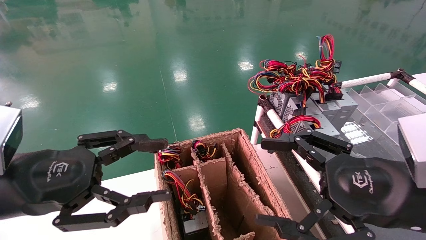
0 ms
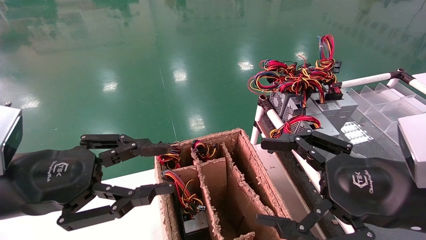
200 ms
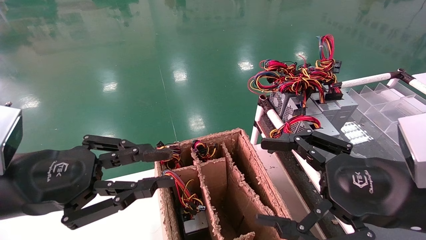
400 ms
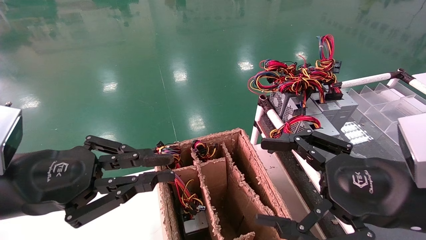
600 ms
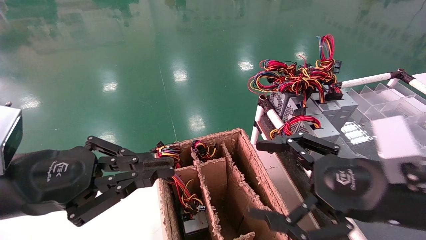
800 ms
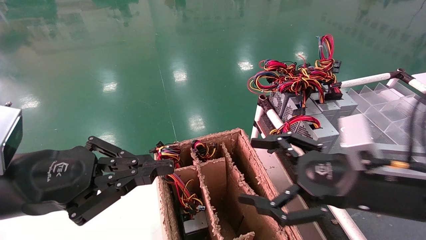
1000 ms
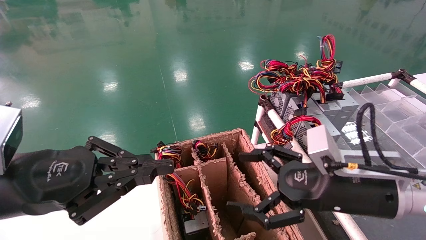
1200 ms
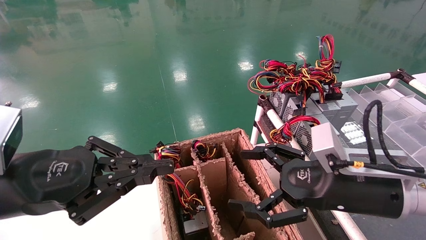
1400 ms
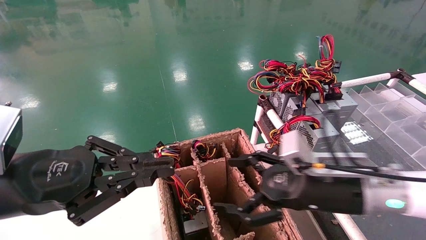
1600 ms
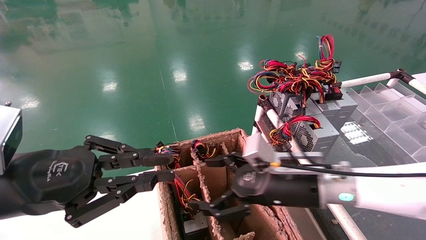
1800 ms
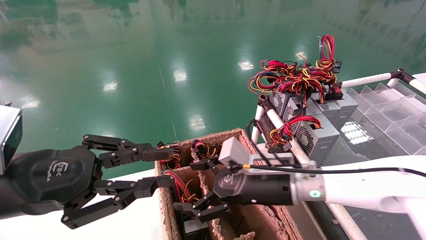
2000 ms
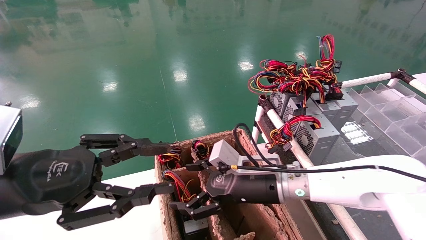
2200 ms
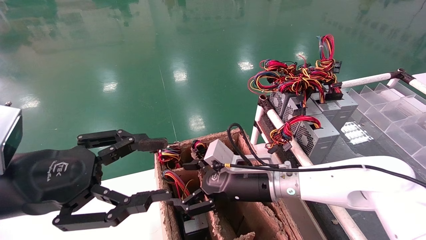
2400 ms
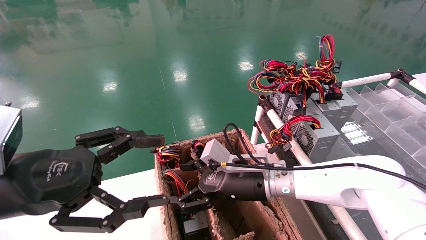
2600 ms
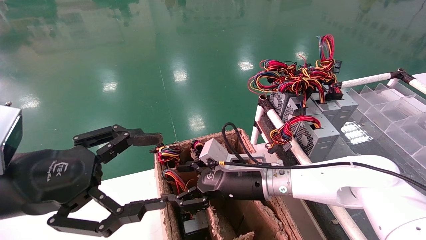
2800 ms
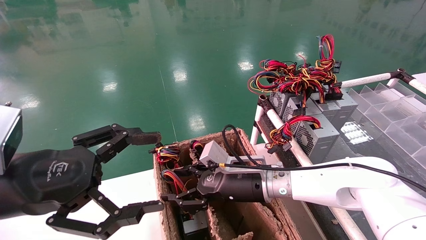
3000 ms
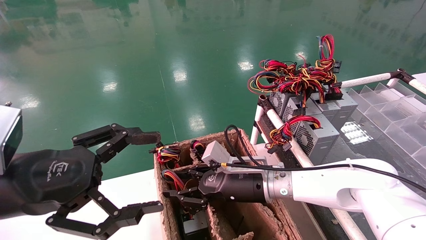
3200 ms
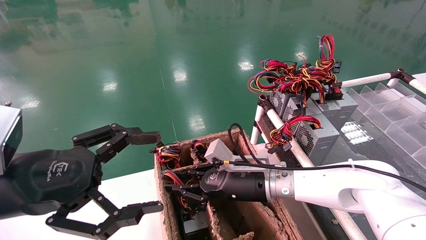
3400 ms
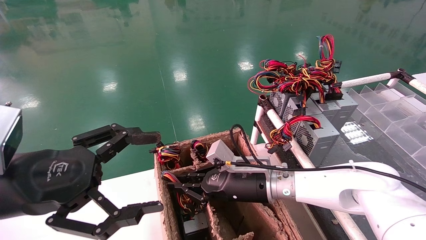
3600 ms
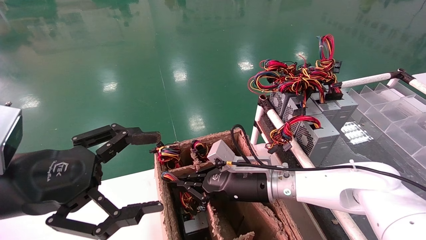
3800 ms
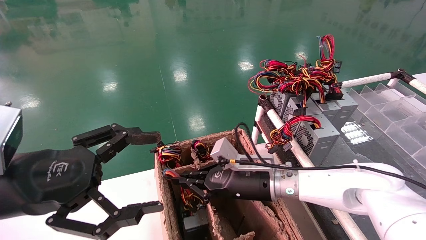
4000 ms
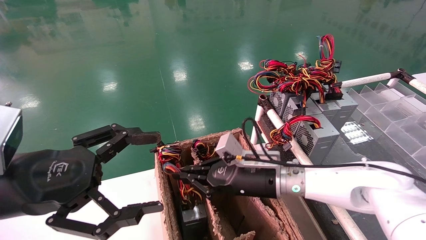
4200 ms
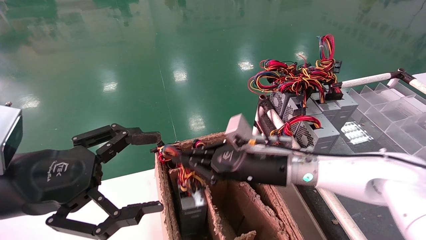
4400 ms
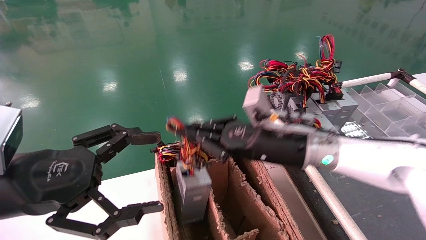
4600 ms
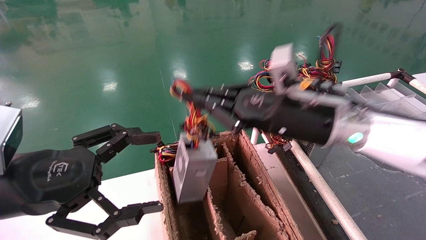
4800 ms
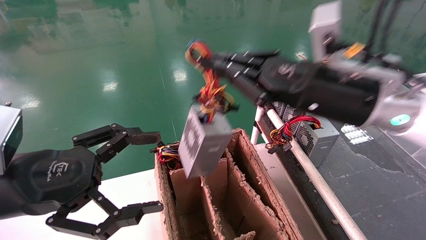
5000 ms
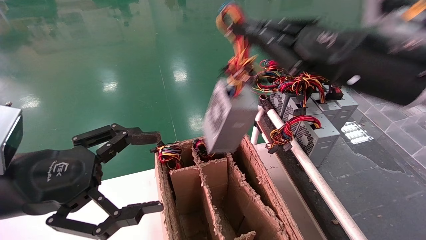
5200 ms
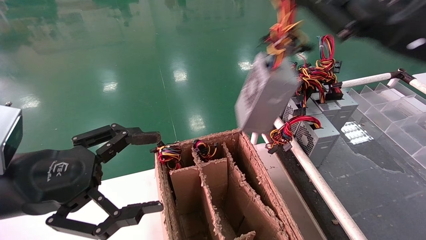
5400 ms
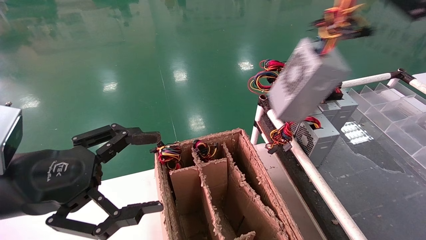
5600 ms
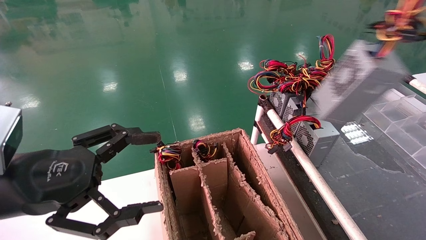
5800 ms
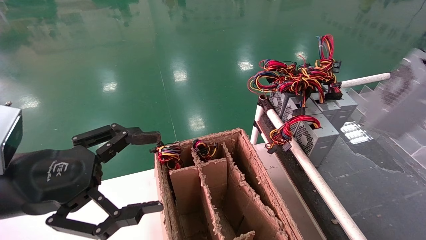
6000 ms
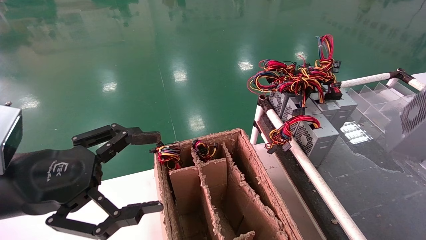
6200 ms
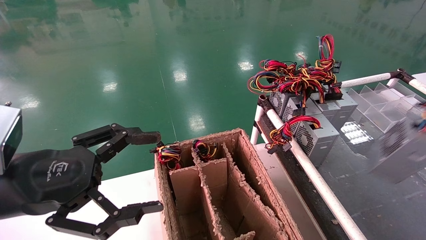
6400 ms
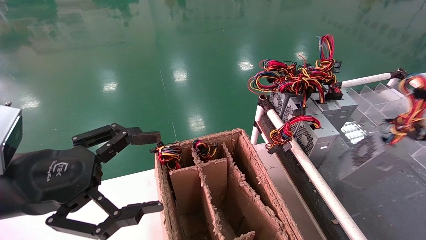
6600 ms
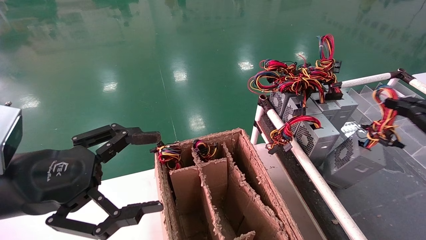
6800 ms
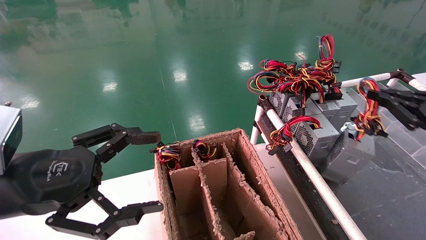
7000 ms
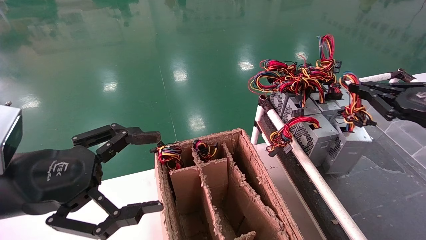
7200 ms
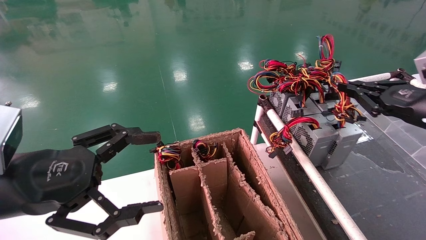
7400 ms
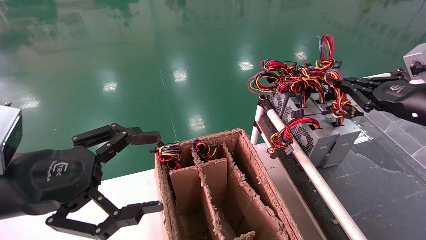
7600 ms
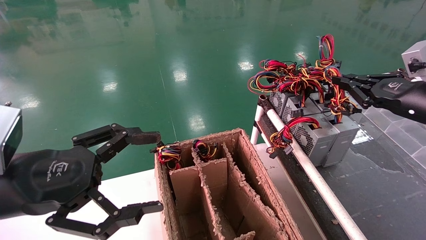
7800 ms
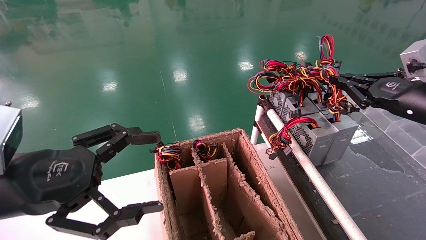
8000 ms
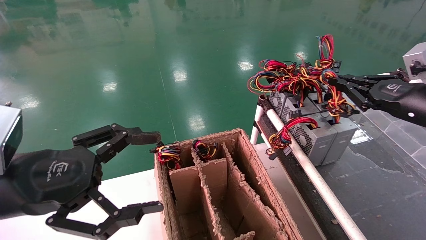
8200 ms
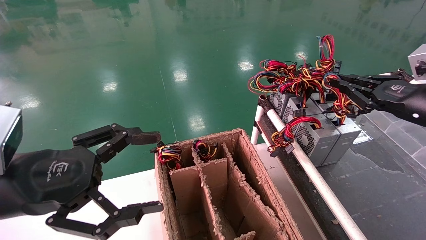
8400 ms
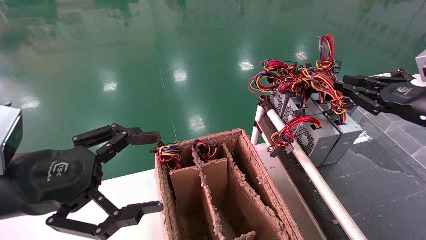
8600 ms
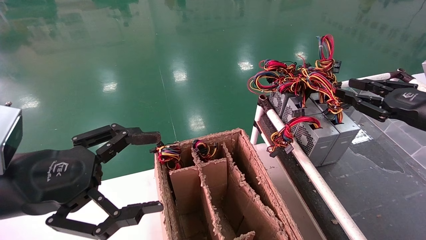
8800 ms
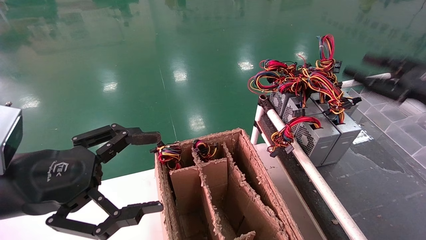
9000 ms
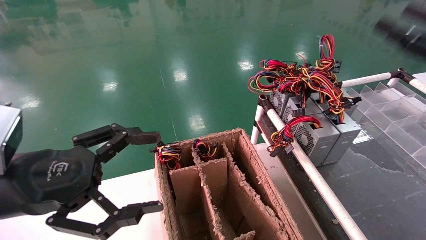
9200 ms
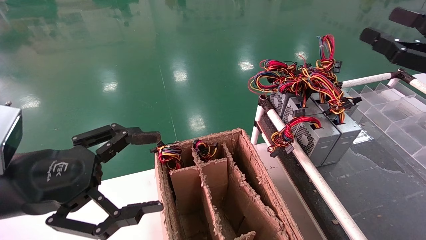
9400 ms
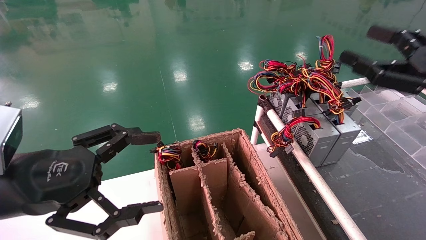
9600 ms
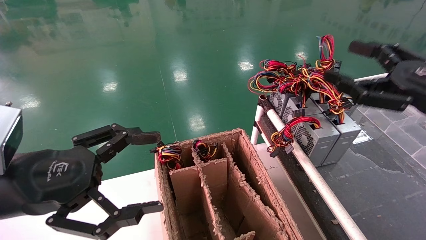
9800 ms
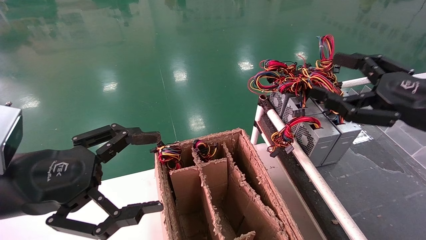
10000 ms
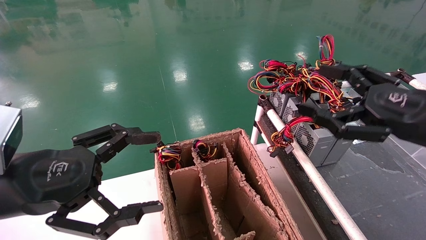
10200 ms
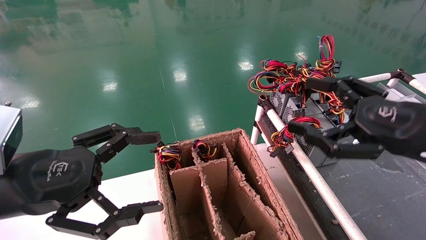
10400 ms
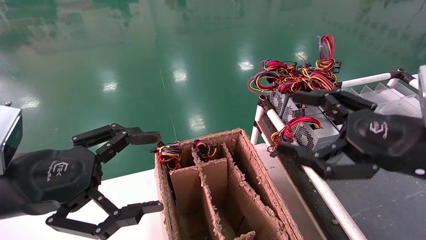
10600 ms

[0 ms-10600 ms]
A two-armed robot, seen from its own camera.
Step, 1200 ms to 3800 ms: Grab and lift the power supply from the large box.
Step, 4000 ms to 8200 ms: Place the power supply on the operating table.
0 ms to 1600 ms: The right gripper shifts about 15 cm forward, to the left and downward, while the left gripper closes.
1600 ms to 3000 ms: The right gripper shifts some 15 cm to the left, forward and downward; the left gripper opens up.
3000 ms to 4600 ms: The right gripper shifts roughly 10 cm upward and to the right, and closes up.
4600 ms to 6000 ms: The right gripper moves to the right, backward and upward, about 40 cm.
6000 ms to 7600 ms: The right gripper moves forward and downward, about 20 cm.
7600 ms to 9000 ms: The right gripper opens up.
9000 ms to 10600 ms: The right gripper is displaced to the left and backward by about 15 cm, and opens its fingers.

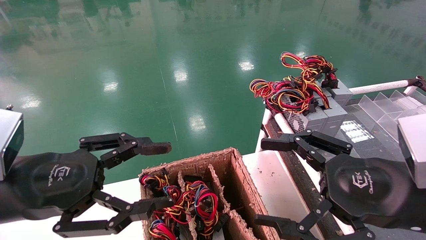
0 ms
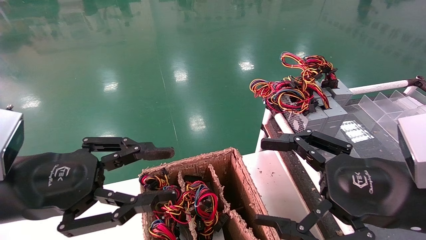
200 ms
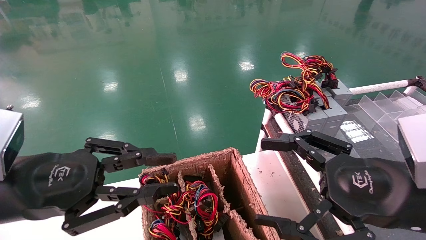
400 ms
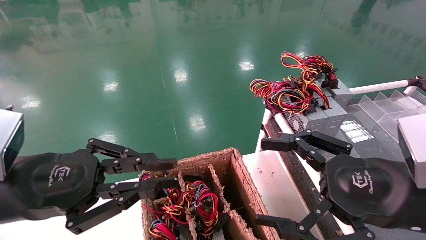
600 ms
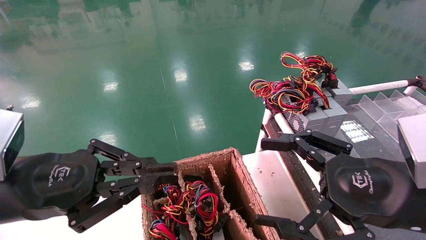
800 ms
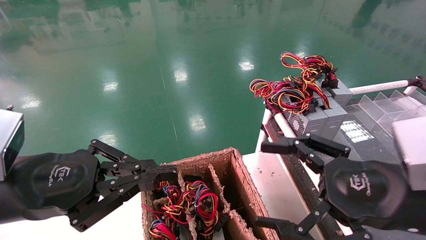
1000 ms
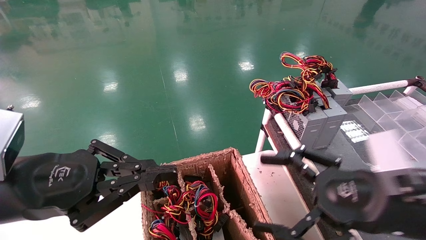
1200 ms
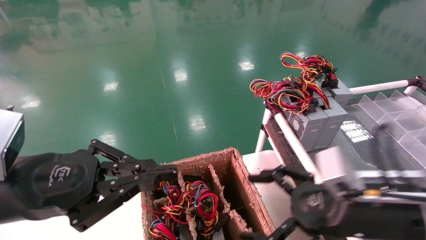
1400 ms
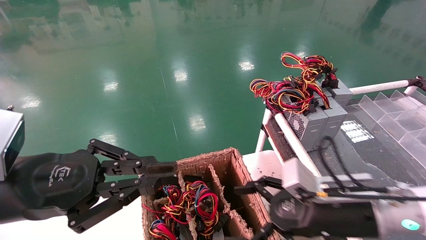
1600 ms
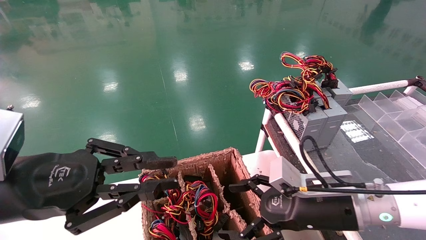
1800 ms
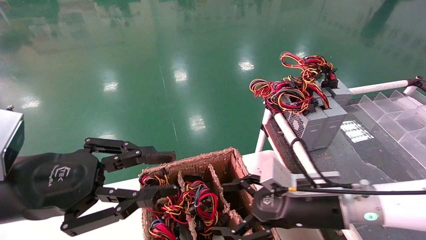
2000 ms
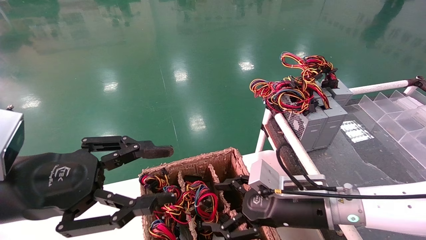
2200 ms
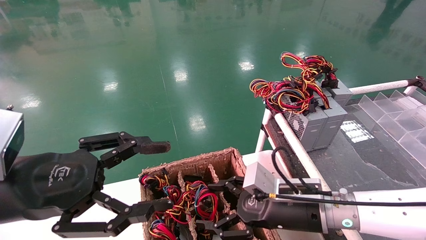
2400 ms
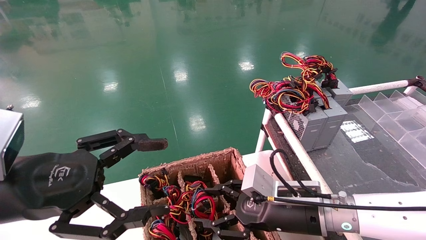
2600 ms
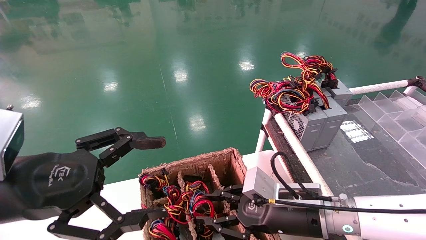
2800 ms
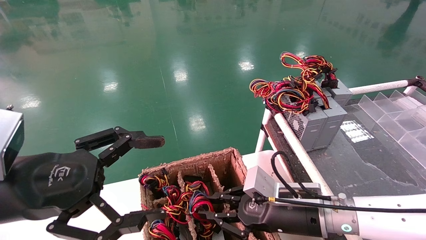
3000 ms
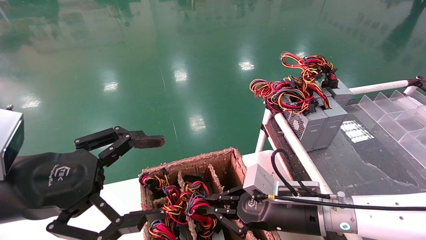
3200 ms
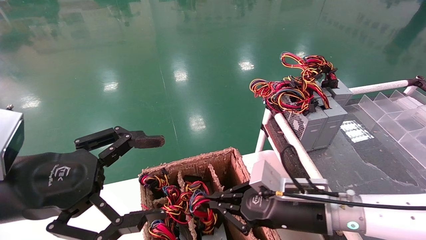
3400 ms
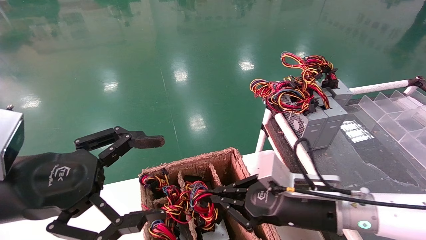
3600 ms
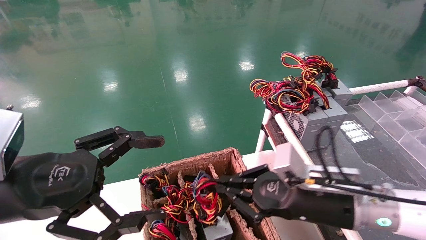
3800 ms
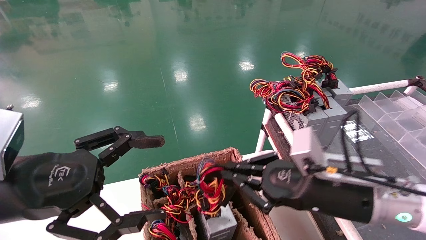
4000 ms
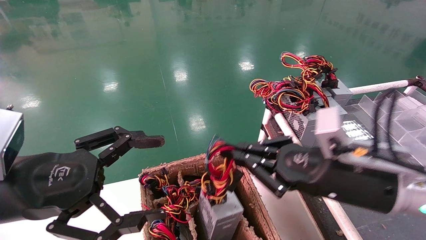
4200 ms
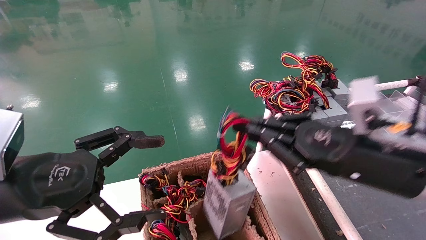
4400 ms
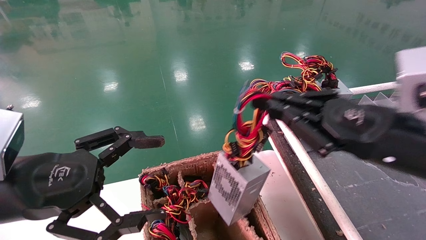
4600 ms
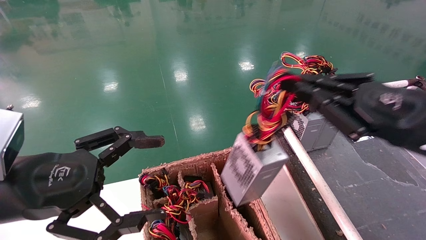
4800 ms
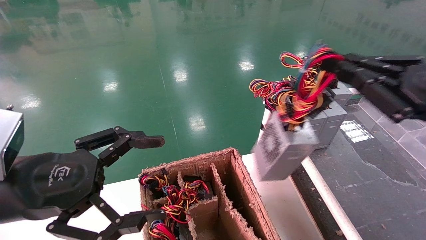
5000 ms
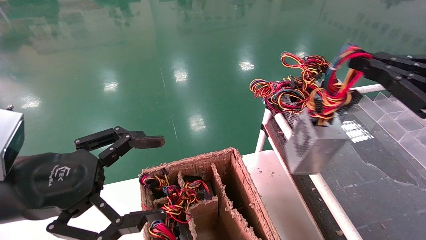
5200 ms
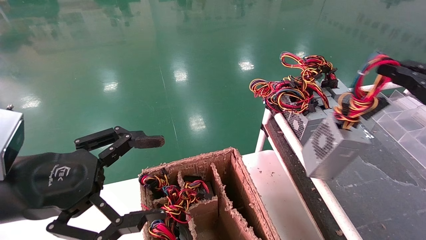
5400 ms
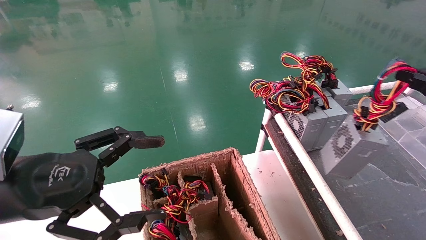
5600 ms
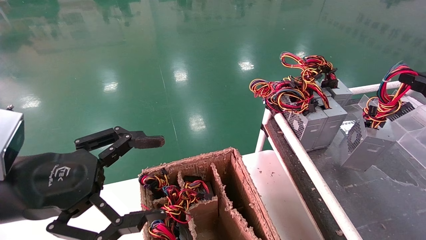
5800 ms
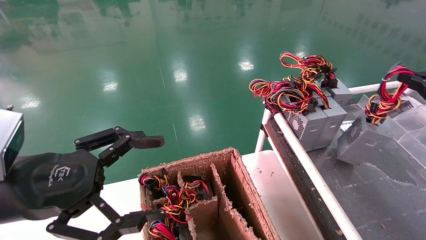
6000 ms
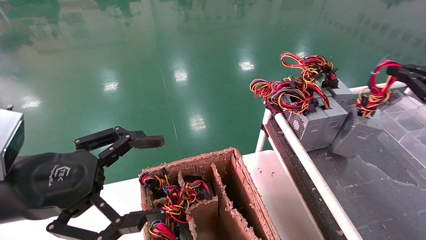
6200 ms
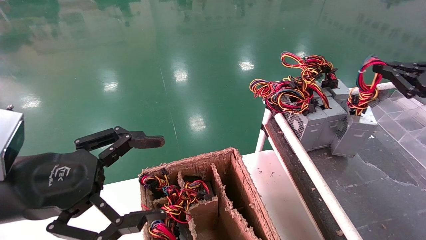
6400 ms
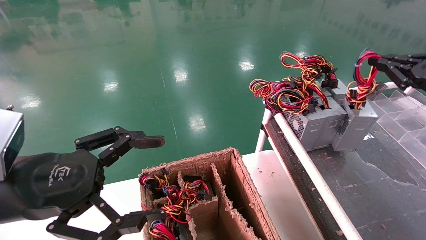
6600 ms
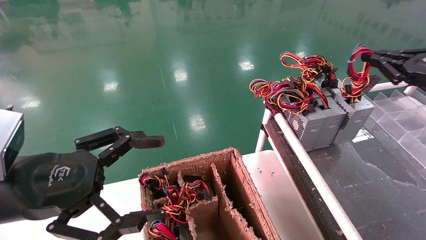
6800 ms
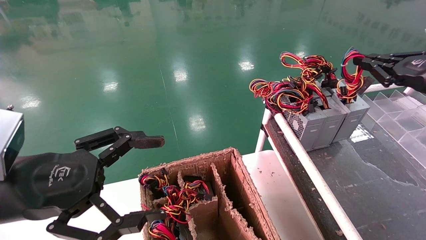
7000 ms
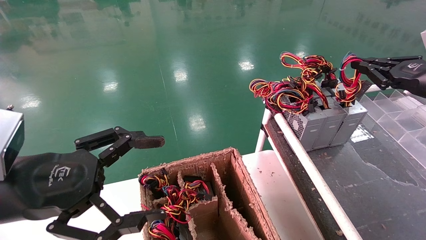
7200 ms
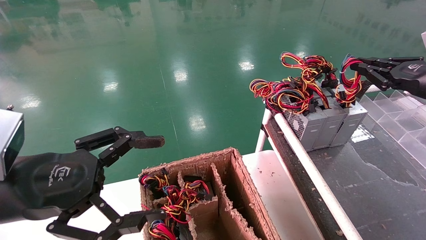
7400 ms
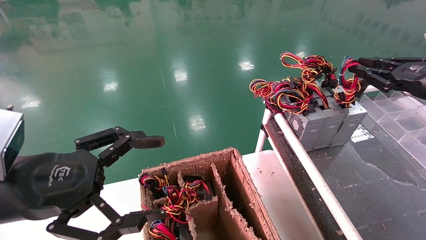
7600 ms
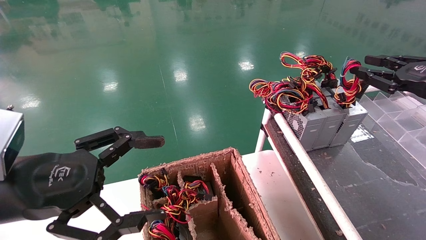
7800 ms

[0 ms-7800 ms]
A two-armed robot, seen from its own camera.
Step, 1200 ms to 4200 ms: Grab and lift the power supply from the large box.
Step, 4400 ms to 7800 ms: Place the power supply on the operating table.
0 ms to 1600 ms: The left gripper closes, while the right gripper heads forward and downward, covering about 10 cm.
1600 ms to 3200 ms: The right gripper heads to the left, covering some 5 cm, and closes; the left gripper opens its fingers.
3200 ms to 4600 ms: The right gripper is displaced upward, to the right and backward by about 20 cm.
4600 ms to 6200 ms: The right gripper shifts about 20 cm to the right.
6200 ms to 7800 ms: The right gripper changes place by some 5 cm.
